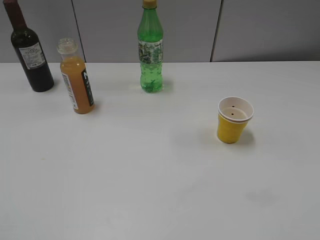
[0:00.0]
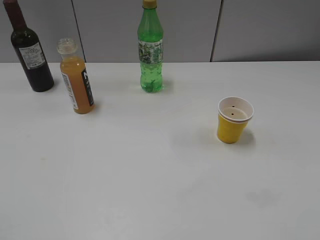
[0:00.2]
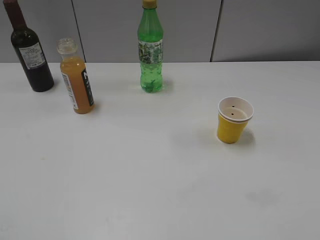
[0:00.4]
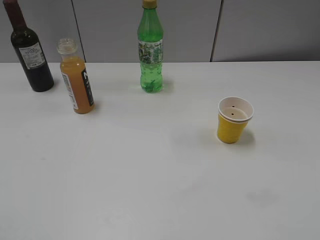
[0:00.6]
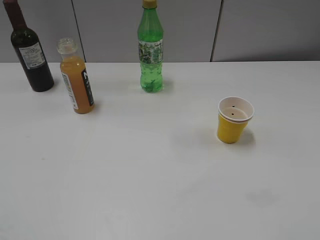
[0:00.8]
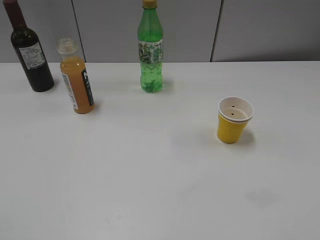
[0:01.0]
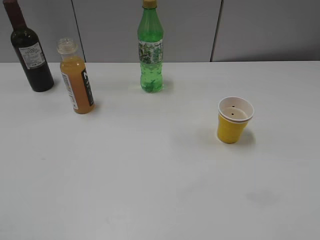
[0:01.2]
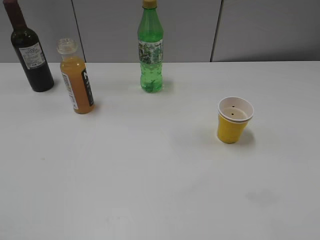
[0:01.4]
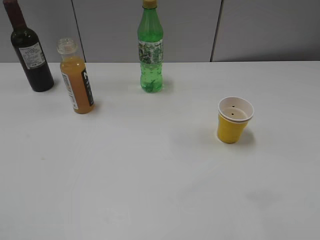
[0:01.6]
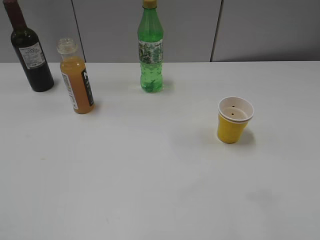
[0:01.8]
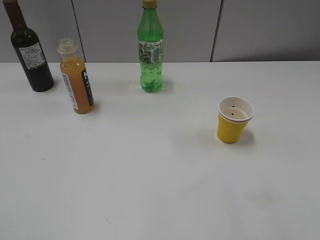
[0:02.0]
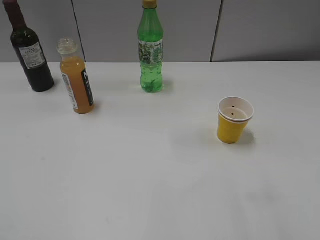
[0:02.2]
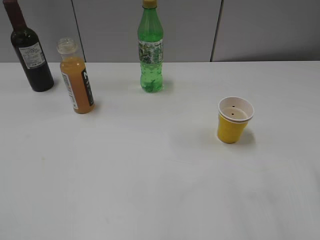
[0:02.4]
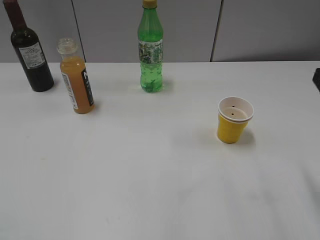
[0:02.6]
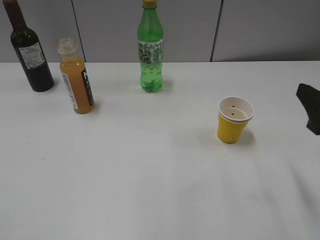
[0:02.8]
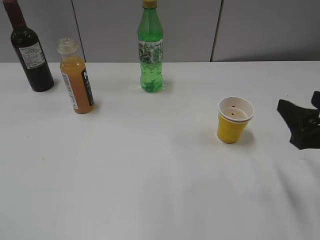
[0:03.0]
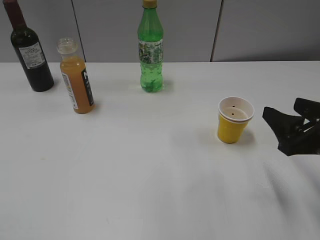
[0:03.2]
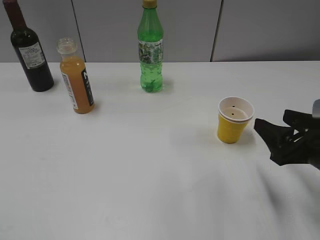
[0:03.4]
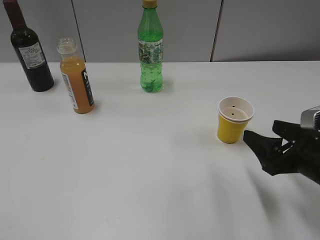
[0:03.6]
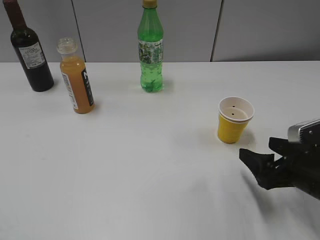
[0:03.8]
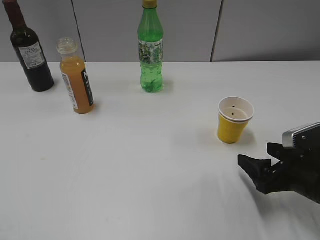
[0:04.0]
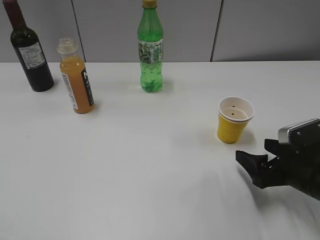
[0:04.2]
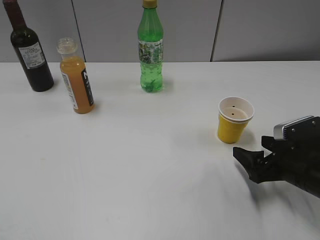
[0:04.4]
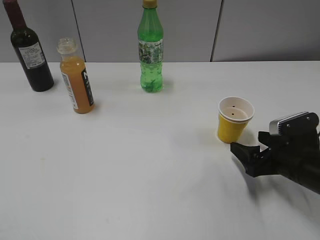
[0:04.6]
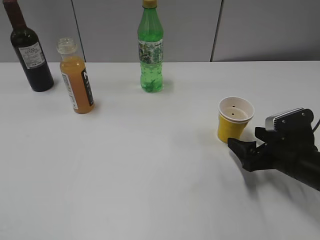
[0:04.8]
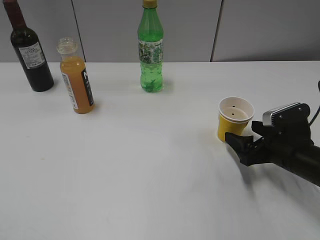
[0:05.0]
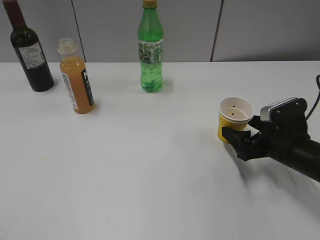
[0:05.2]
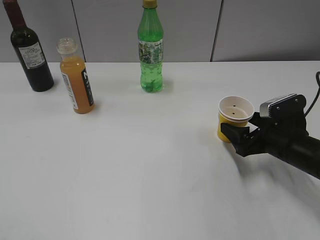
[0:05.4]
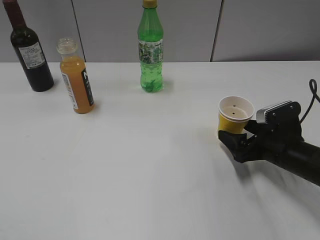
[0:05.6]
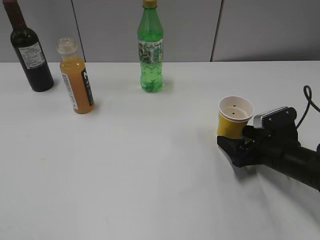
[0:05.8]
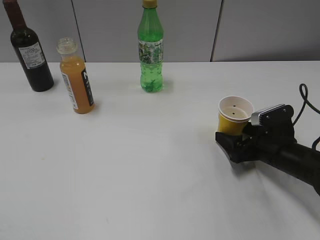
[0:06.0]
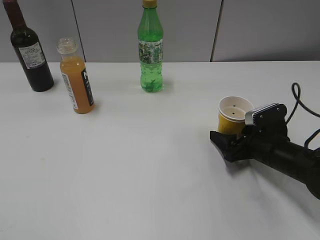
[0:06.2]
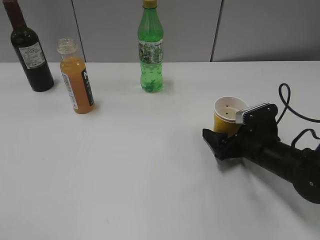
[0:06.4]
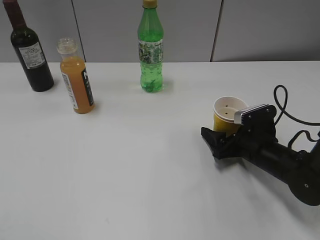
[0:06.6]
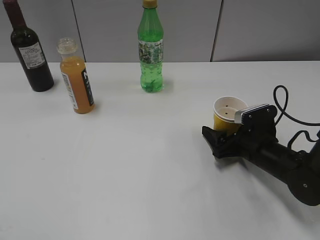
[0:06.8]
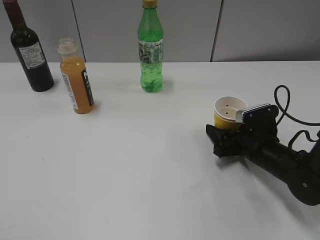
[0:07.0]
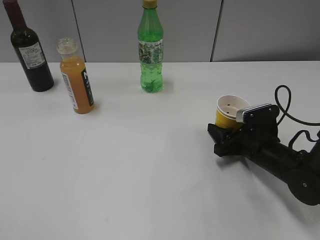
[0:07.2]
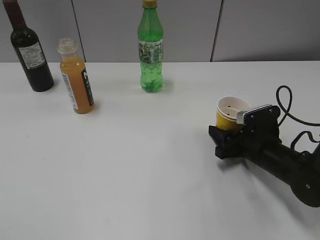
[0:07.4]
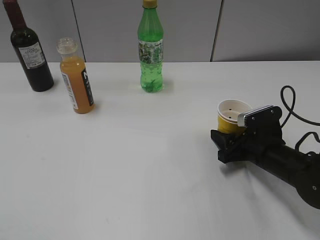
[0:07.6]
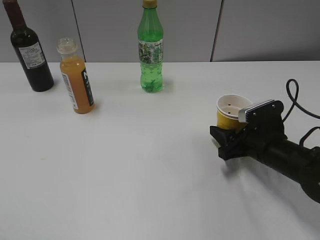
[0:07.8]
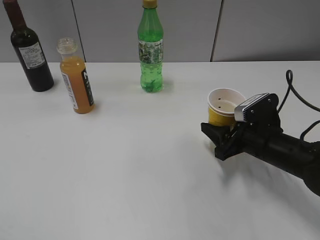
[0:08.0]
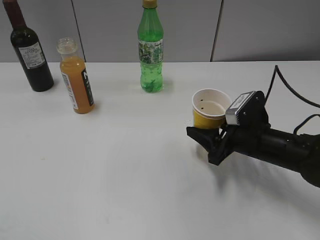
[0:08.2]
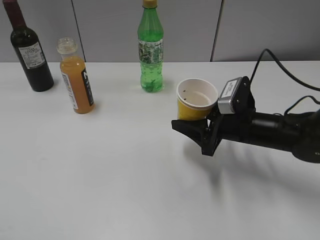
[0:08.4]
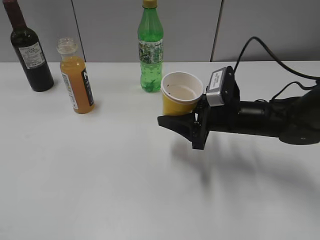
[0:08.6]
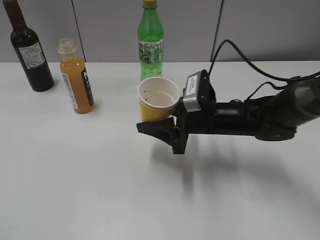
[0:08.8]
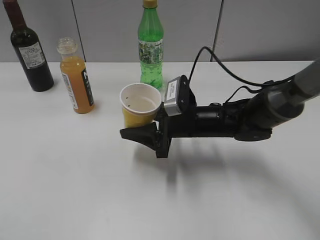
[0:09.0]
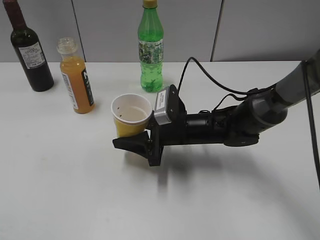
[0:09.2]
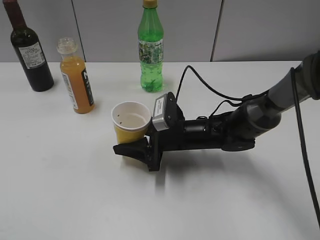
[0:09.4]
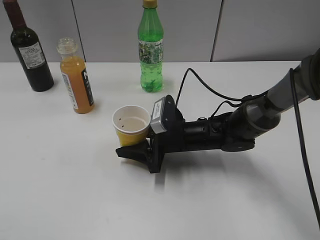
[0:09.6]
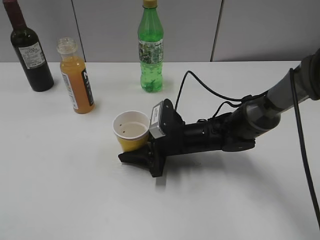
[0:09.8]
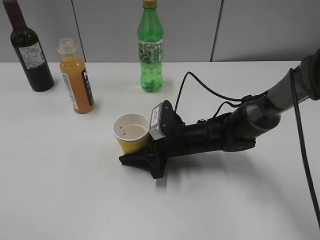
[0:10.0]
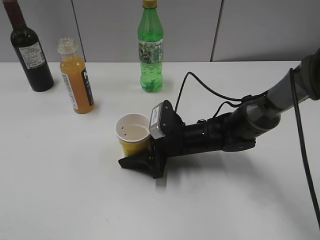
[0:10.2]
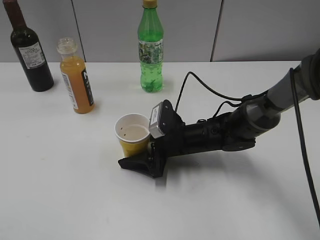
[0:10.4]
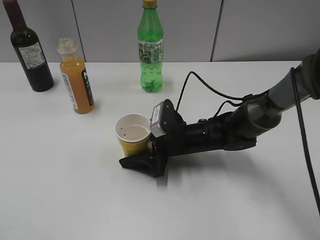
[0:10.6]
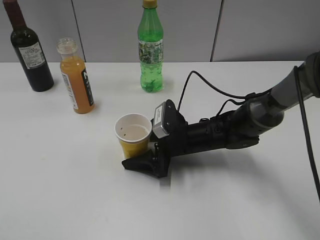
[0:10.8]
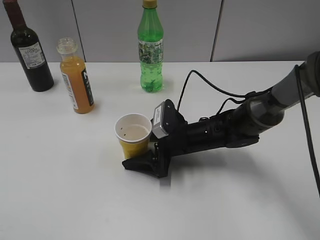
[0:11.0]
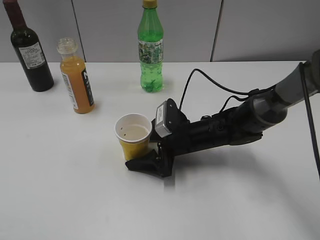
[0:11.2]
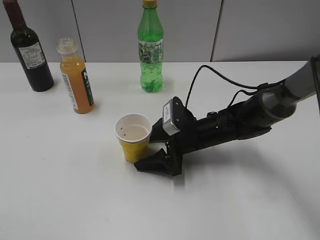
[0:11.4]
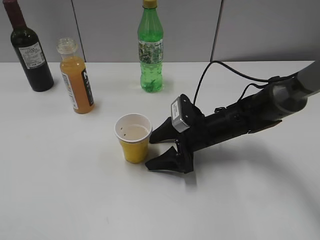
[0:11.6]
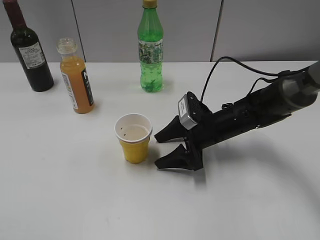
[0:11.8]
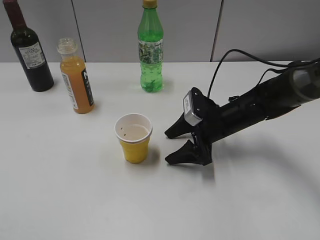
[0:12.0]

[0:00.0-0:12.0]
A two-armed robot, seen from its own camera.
Step, 0:02.6 to 0:07.4: Grasp the yellow paper cup with right gripper.
Step, 0:07.6 to 0:11.4: Place the yellow paper cup on the table with right gripper.
0:01.6 to 0:03.0: The right gripper shifts roughly 15 cm forward and downward.
0:03.0 to 0:04.4: The right gripper travels downward by roughly 10 cm, and opens.
0:04.4 to 0:06.0: The right gripper shifts some 5 cm forward.
0:06.0 to 0:07.6: The right gripper closes up.
0:07.6 to 0:09.0: The right gripper heads to the left, covering approximately 15 cm.
0:09.0 to 0:10.4: The right gripper is displaced downward by some 5 cm, and opens.
0:10.4 to 0:12.0: The right gripper is displaced to the right by some 5 cm.

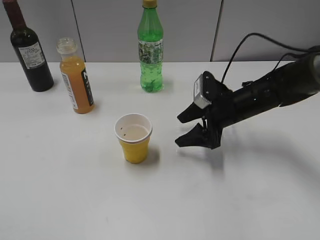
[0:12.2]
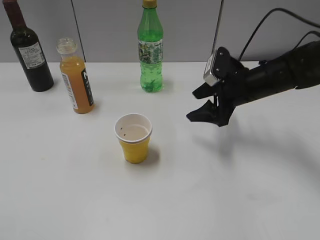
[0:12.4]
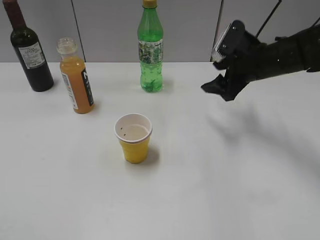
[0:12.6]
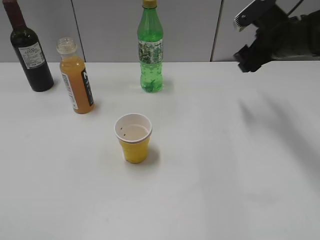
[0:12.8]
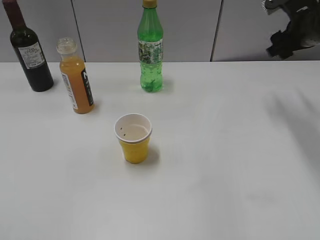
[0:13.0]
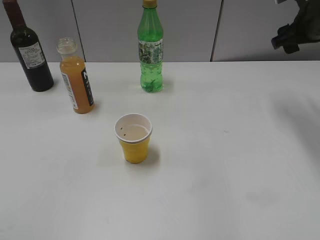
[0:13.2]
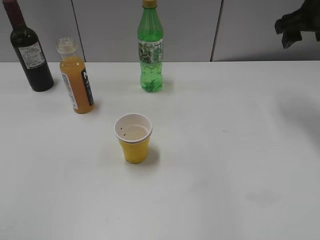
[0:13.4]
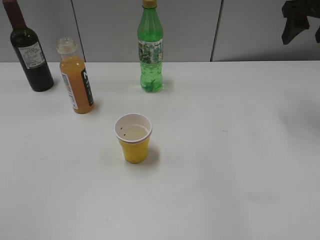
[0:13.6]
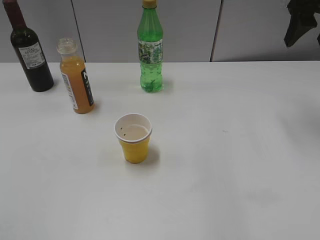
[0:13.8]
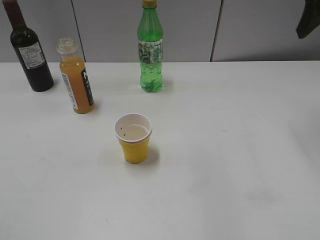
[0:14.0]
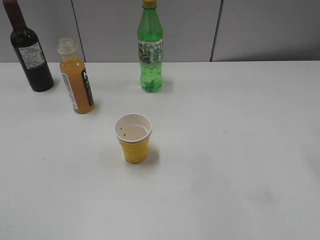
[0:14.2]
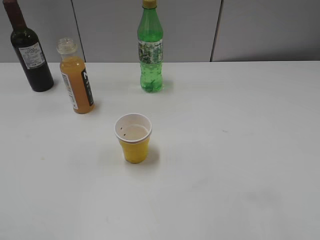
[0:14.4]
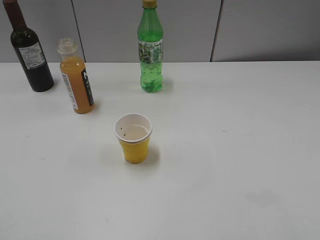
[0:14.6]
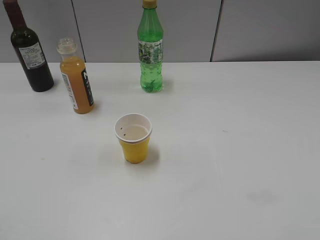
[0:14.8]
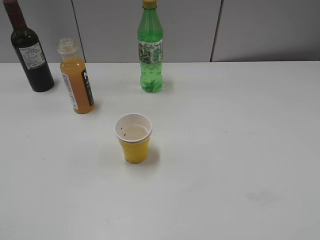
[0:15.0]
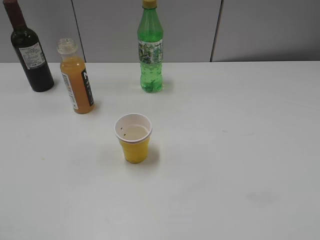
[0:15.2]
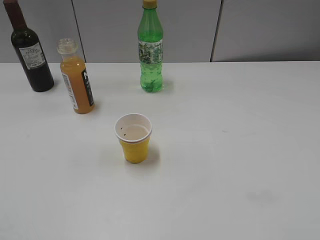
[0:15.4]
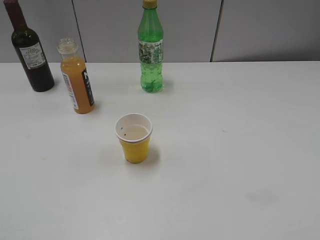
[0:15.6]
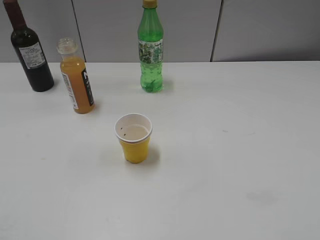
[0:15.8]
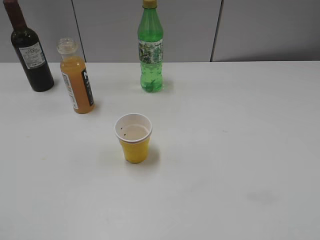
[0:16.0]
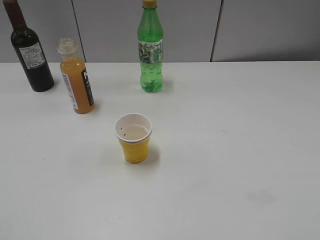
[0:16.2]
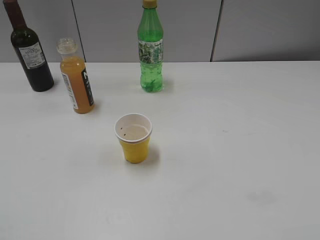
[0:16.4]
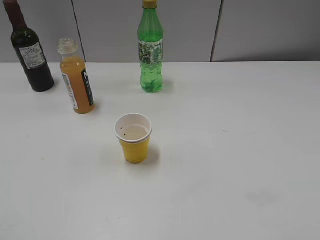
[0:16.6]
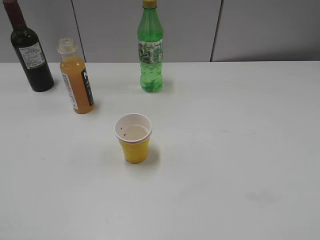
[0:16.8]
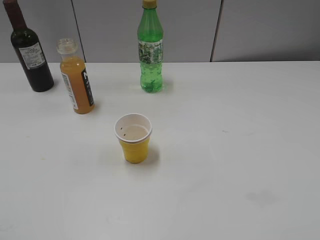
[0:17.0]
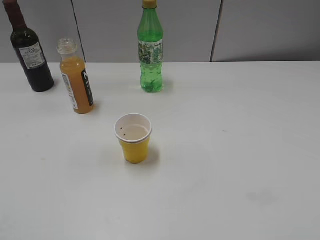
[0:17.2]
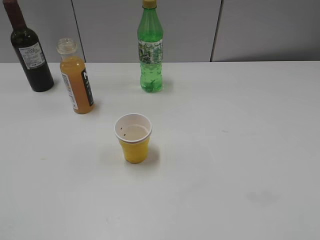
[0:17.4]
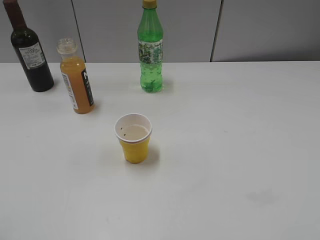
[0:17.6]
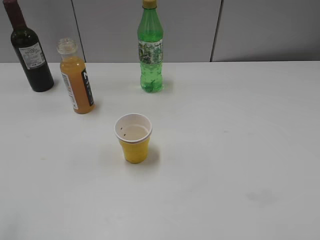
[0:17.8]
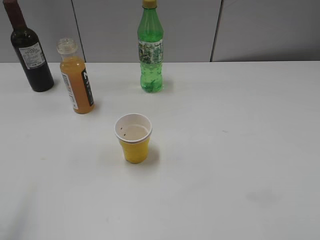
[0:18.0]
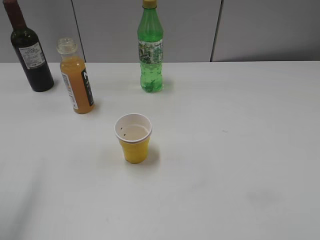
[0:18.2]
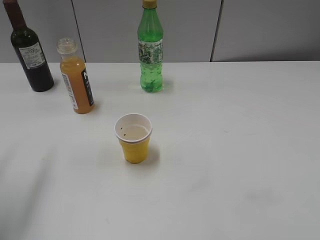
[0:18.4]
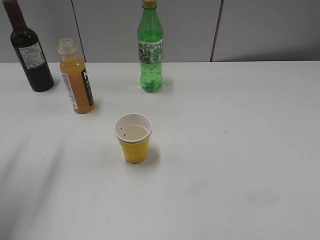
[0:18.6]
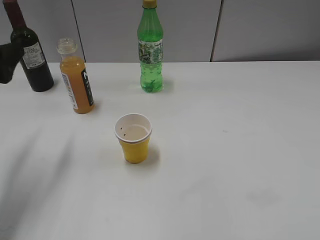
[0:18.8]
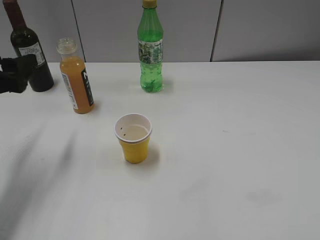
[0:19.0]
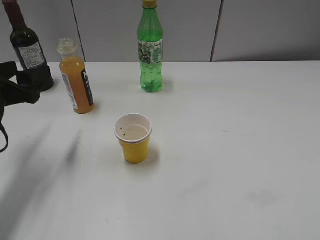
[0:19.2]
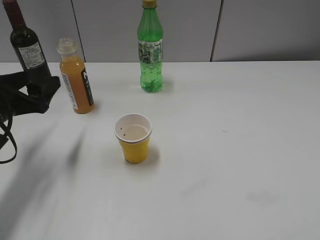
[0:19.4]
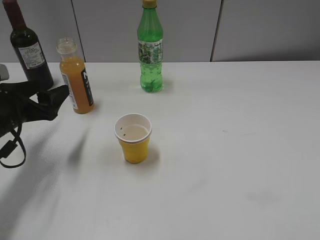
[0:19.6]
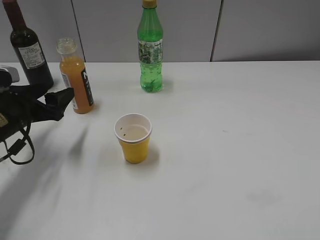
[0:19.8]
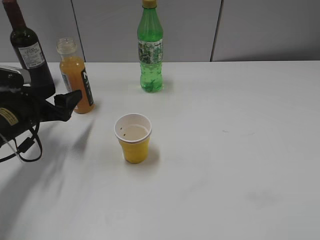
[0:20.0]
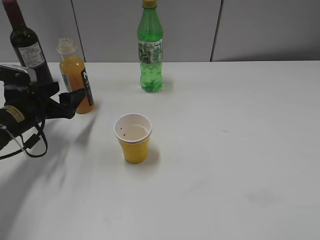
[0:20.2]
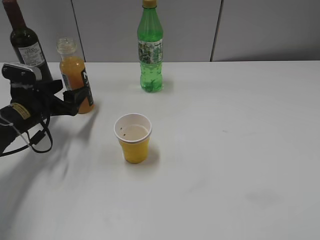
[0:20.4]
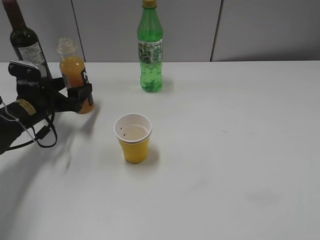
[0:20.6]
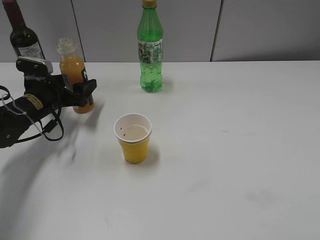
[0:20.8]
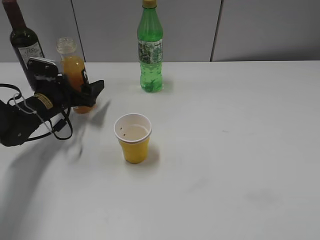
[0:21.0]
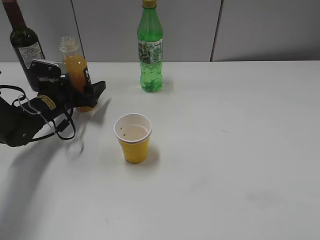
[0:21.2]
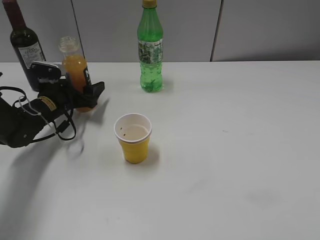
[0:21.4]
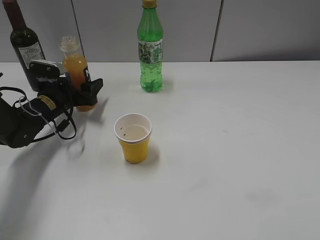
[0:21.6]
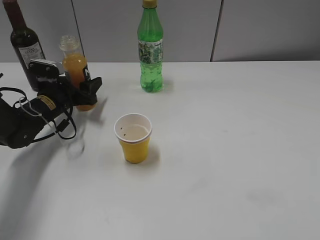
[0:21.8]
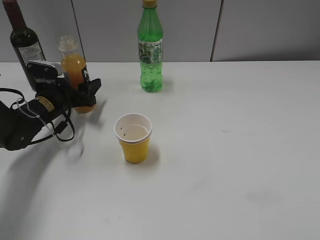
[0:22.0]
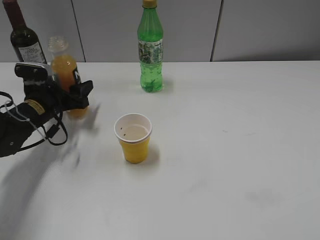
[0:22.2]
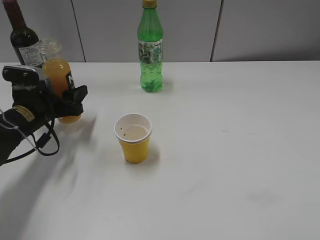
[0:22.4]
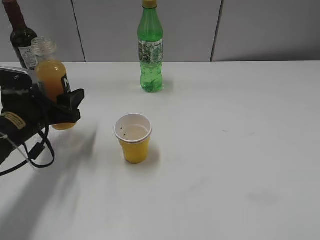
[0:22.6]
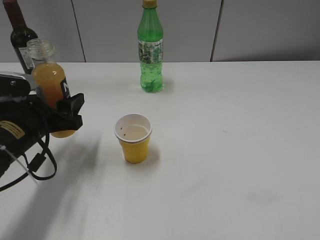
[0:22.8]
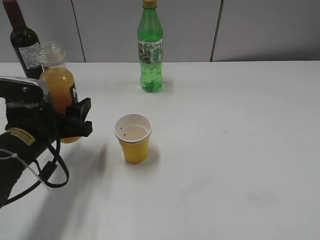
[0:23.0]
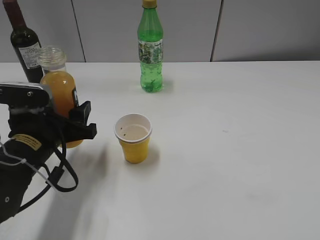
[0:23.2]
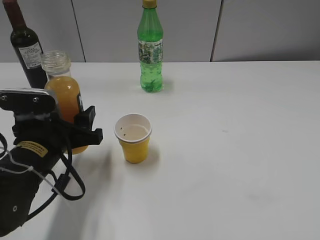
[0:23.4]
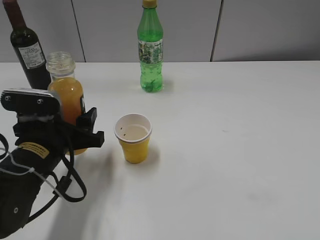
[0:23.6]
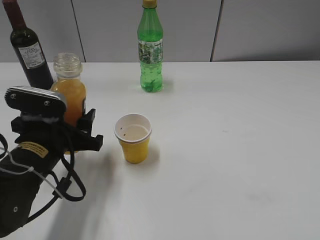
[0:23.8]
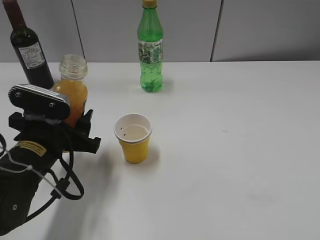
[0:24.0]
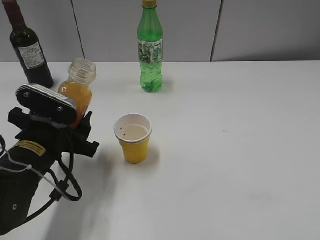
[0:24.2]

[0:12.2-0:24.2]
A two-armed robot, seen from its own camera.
Step, 0:12.2 to 0:21.6: Grasp the bottle with orange juice with left gripper.
0:12.2 to 0:13.8: The right gripper travels upward and to the right by about 25 cm.
0:13.8 to 0:15.2: The right gripper heads backward, covering some 35 cm.
0:16.6 to 0:18.2: The left gripper shifts some 15 cm forward, and opens its fingers.
0:18.2 to 0:19.8: The left gripper travels downward and forward by about 25 cm.
0:19.8 to 0:21.2: The left gripper is displaced forward and downward by about 10 cm.
0:21.2 to 0:22.6: The left gripper moves backward, some 10 cm, and closes.
0:22.6 to 0:24.2: The left gripper heads backward and to the right, covering about 10 cm.
